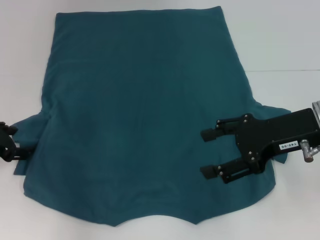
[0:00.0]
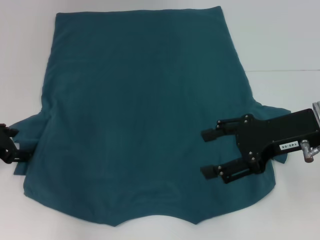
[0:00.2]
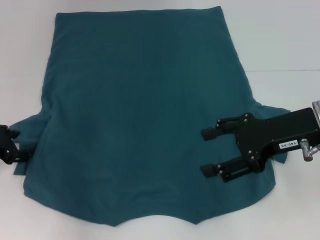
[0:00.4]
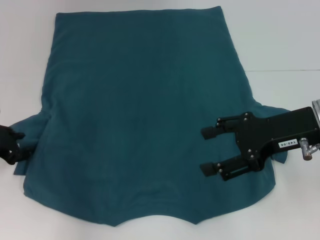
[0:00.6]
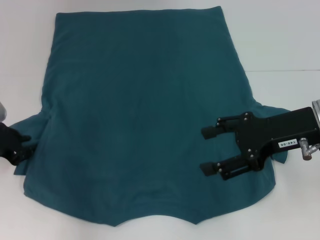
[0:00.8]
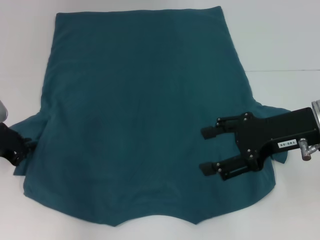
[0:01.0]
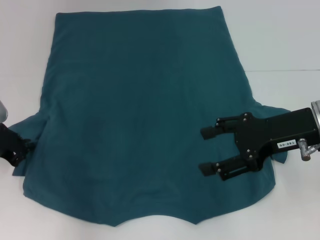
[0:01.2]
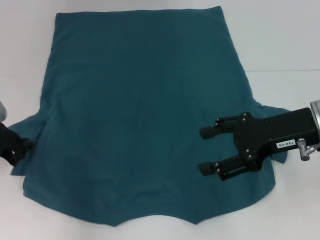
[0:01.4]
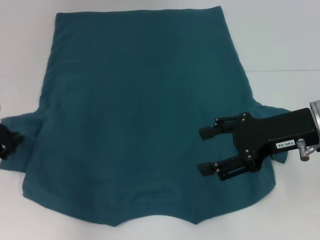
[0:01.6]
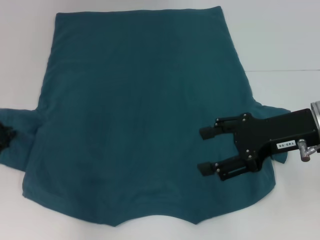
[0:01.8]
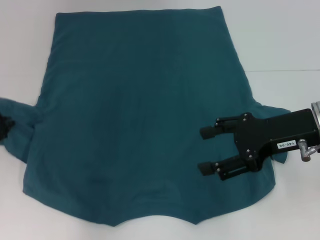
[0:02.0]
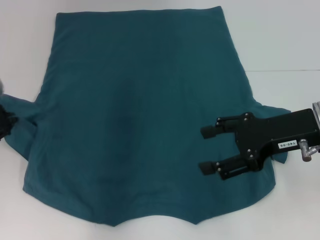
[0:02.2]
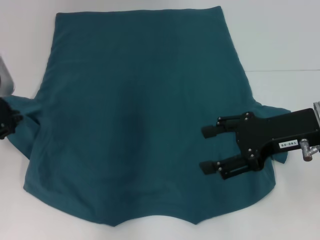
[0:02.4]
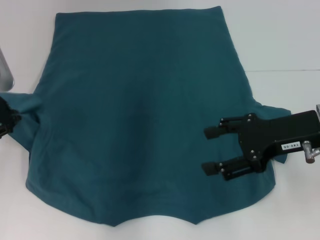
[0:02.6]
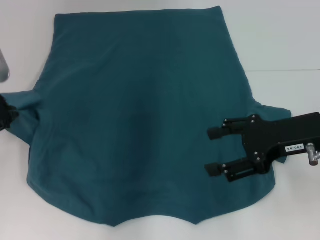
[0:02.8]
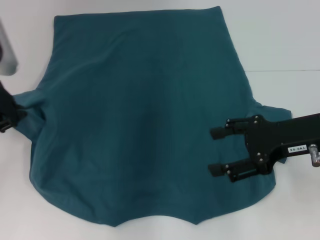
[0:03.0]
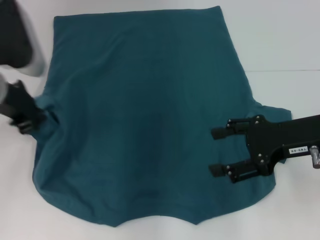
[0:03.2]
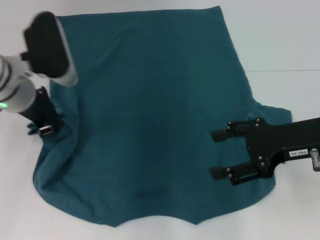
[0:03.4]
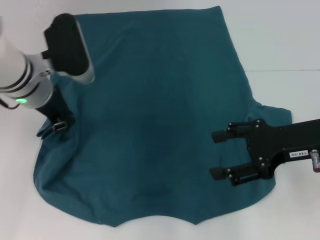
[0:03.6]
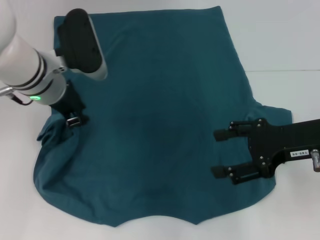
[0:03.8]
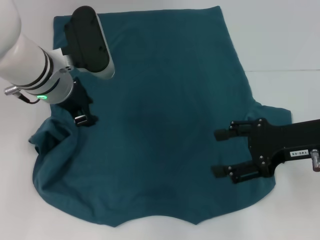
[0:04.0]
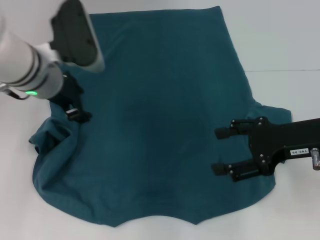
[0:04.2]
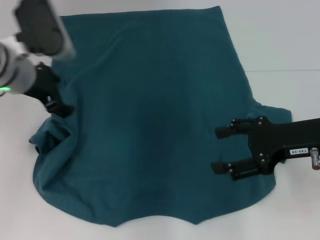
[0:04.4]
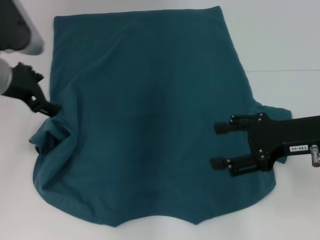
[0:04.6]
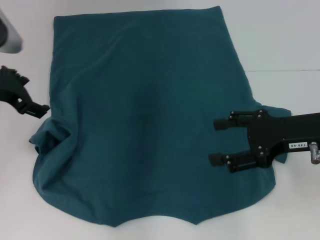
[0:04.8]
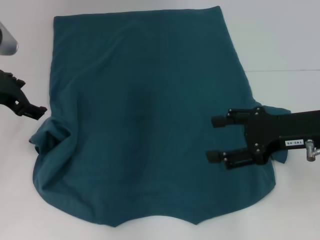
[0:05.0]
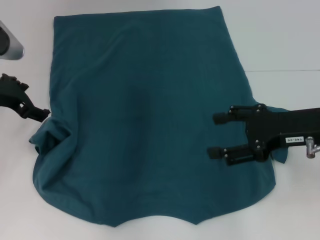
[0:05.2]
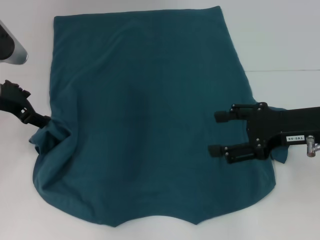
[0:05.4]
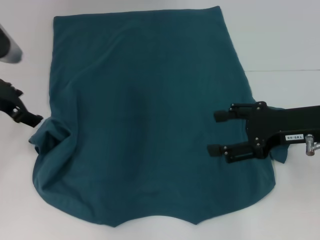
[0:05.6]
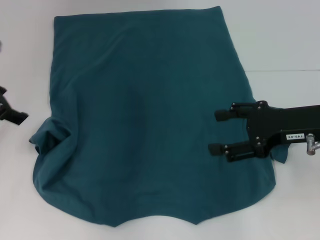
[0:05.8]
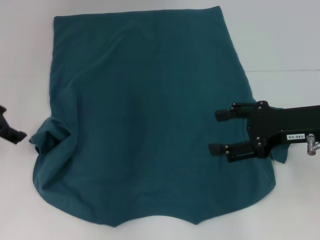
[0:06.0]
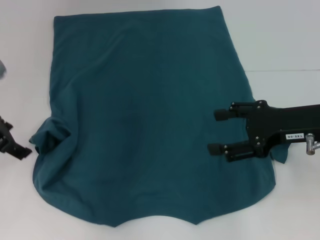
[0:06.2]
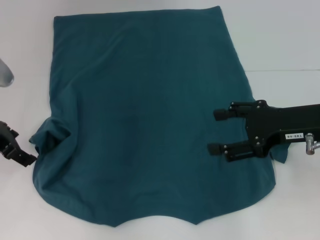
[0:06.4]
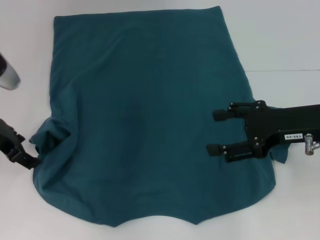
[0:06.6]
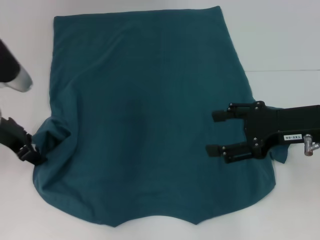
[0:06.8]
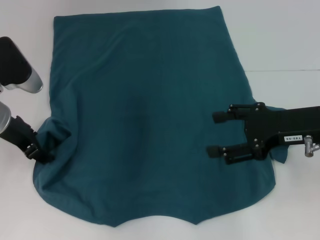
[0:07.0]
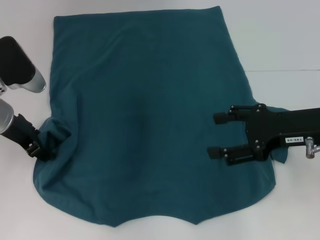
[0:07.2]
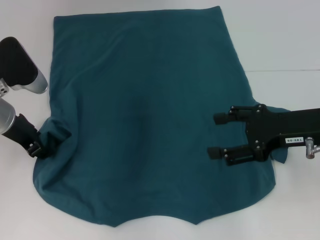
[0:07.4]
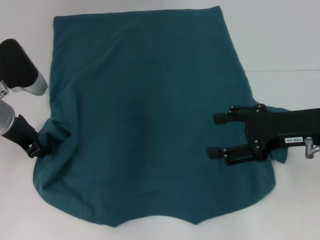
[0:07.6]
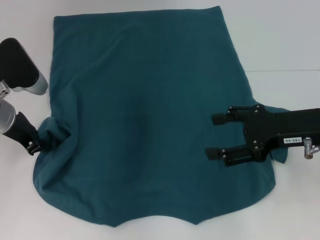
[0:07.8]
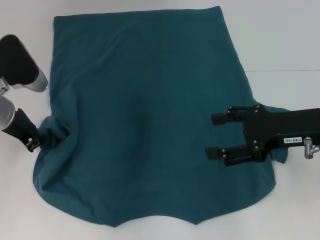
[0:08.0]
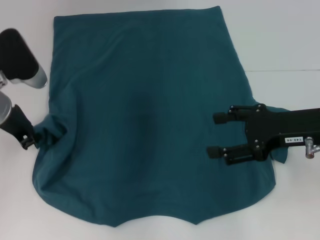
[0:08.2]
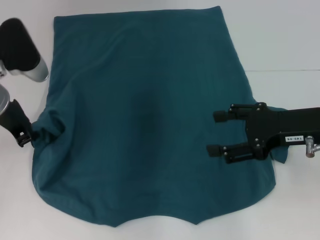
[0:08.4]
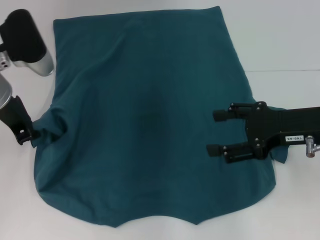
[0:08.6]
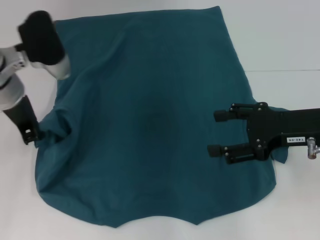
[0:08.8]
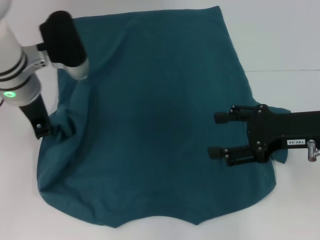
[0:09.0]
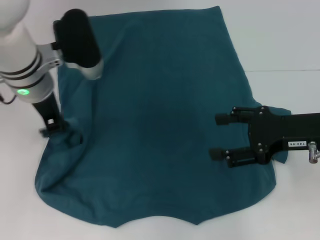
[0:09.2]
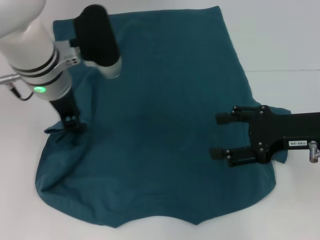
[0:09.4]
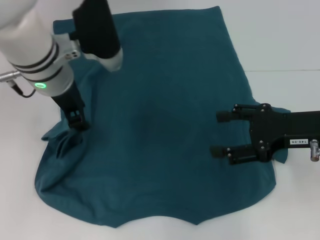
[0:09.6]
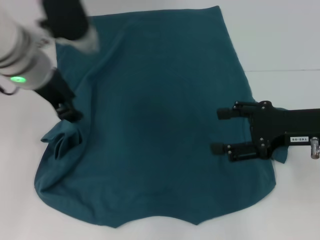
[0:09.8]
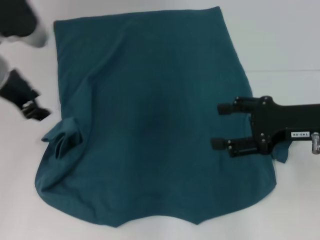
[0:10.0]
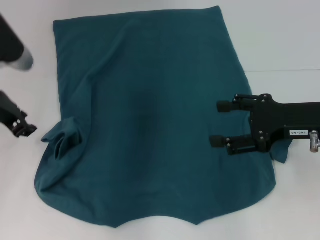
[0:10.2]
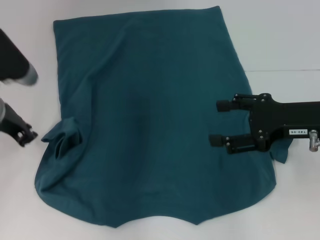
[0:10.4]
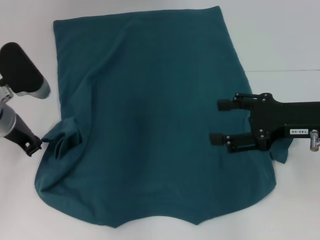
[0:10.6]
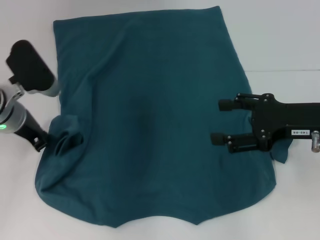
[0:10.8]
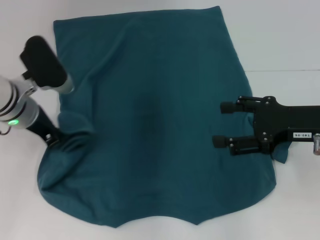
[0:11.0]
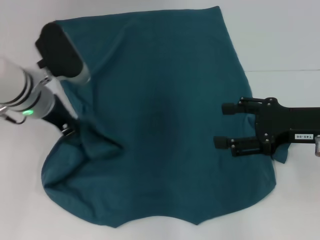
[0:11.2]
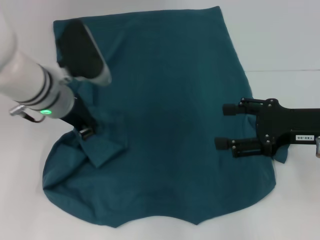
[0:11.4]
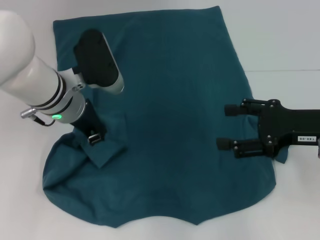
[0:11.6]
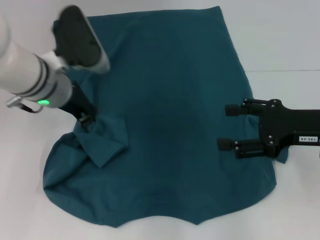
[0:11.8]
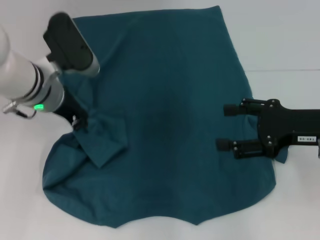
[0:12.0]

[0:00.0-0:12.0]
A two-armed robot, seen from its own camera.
0:00.0 to 0:01.6: The left gripper closes up.
0:01.6 to 0:03.0: The left gripper moves upward and to the right, about 10 cm.
0:03.0 to 0:04.4: The left gripper moves to the right, approximately 5 cm, and opens.
0:04.4 to 0:06.0: The left gripper heads to the left, covering approximately 10 cm.
0:06.0 to 0:07.6: The left gripper heads downward, covering roughly 5 cm, and closes its fingers.
0:07.6 to 0:09.0: The left gripper travels to the right and upward by about 10 cm, and closes up.
0:09.0 to 0:10.4: The left gripper is displaced to the left and downward by approximately 10 cm, and opens its fingers.
0:10.4 to 0:12.0: The left gripper heads to the right, covering about 10 cm, and closes up.

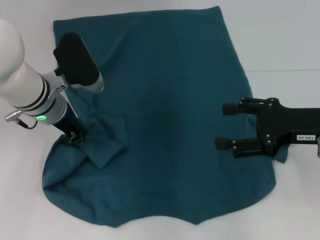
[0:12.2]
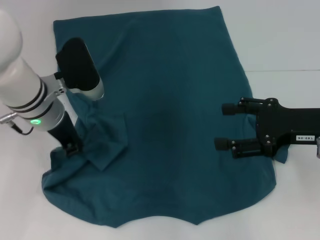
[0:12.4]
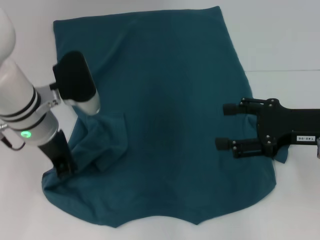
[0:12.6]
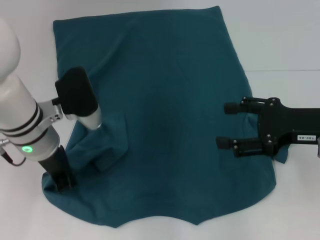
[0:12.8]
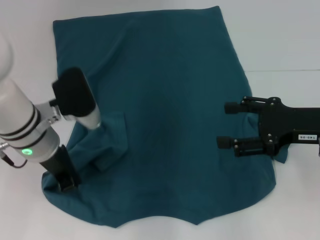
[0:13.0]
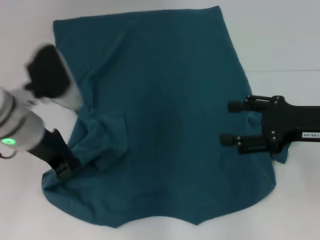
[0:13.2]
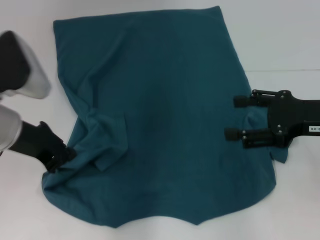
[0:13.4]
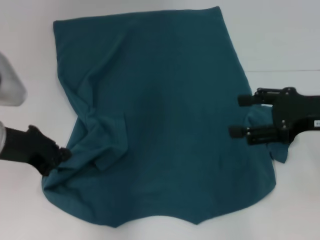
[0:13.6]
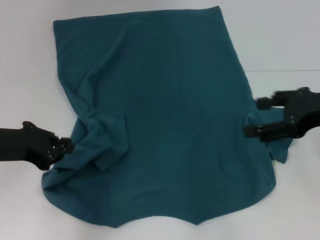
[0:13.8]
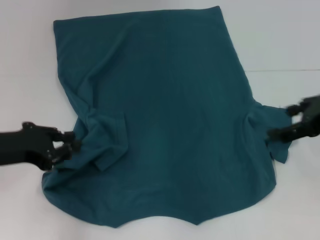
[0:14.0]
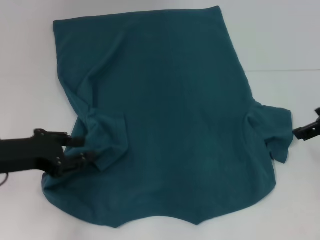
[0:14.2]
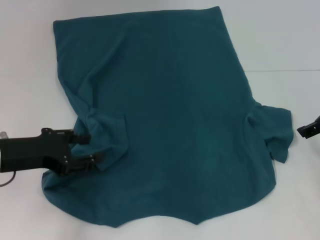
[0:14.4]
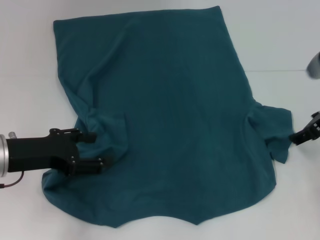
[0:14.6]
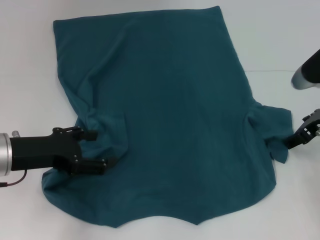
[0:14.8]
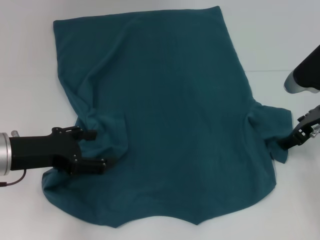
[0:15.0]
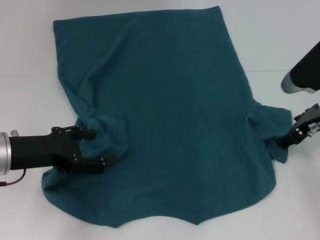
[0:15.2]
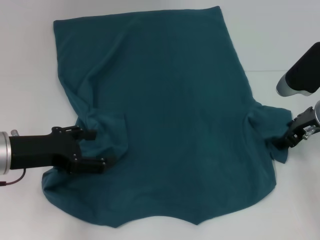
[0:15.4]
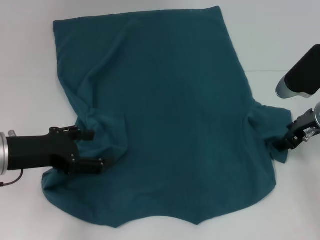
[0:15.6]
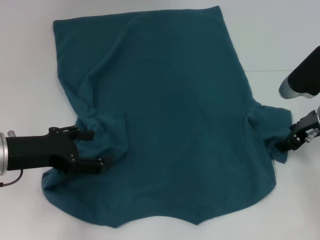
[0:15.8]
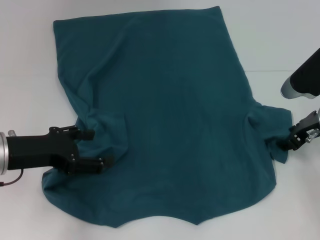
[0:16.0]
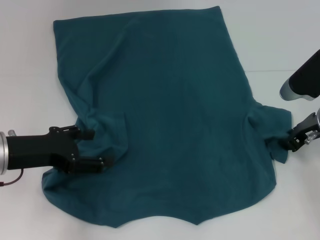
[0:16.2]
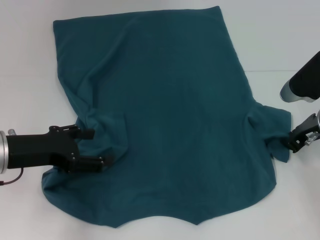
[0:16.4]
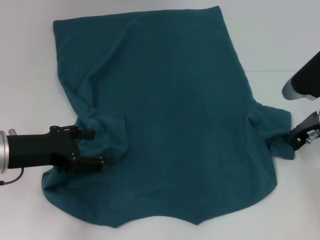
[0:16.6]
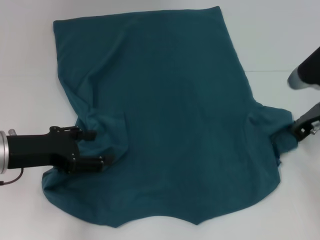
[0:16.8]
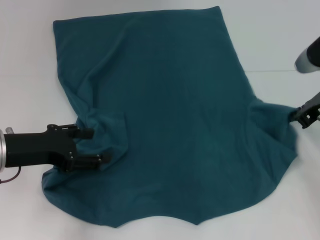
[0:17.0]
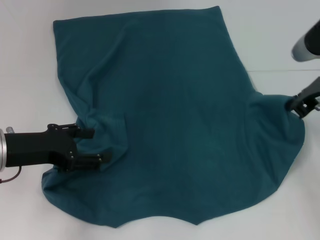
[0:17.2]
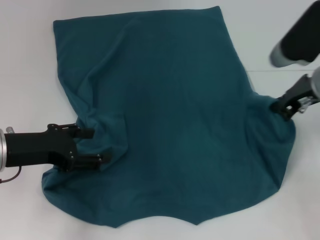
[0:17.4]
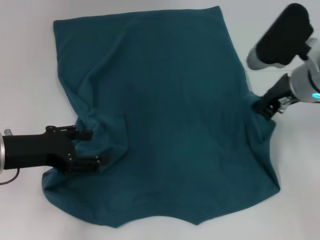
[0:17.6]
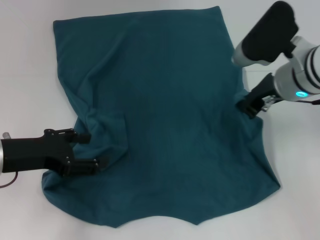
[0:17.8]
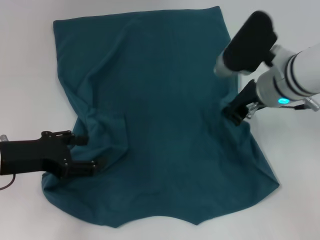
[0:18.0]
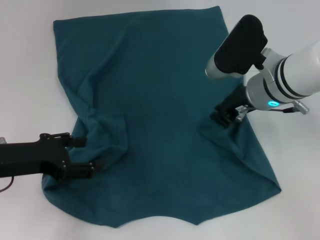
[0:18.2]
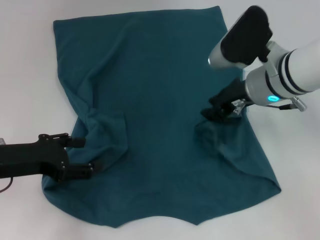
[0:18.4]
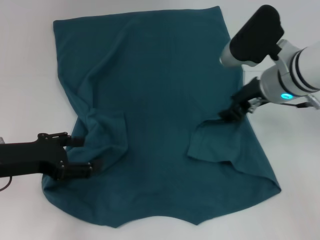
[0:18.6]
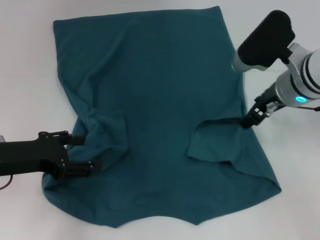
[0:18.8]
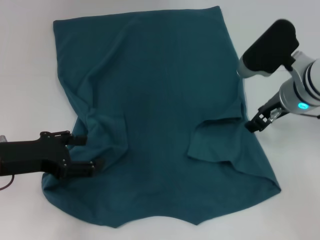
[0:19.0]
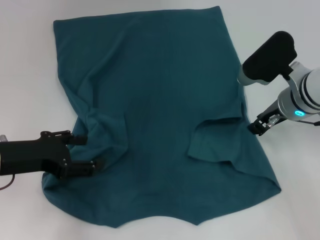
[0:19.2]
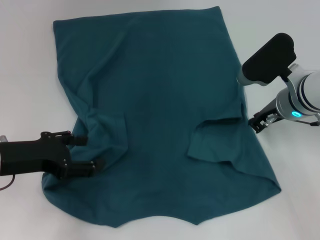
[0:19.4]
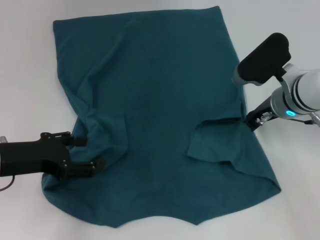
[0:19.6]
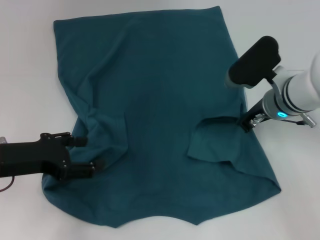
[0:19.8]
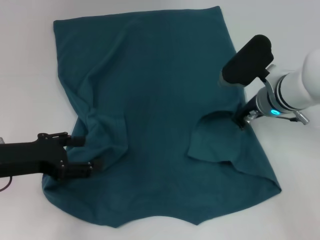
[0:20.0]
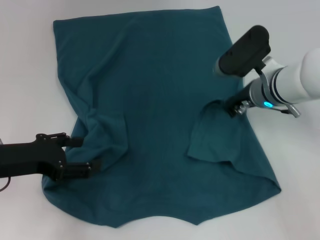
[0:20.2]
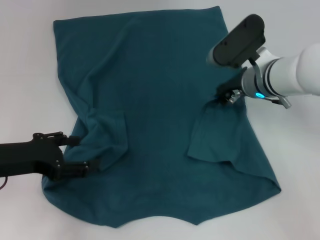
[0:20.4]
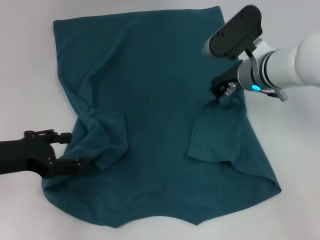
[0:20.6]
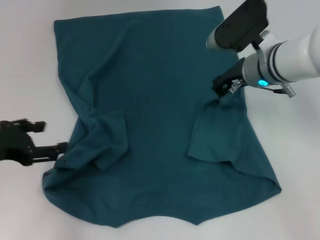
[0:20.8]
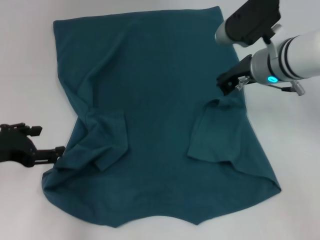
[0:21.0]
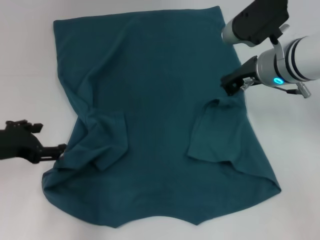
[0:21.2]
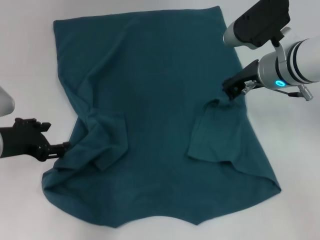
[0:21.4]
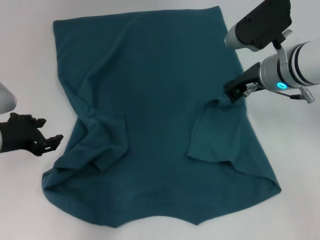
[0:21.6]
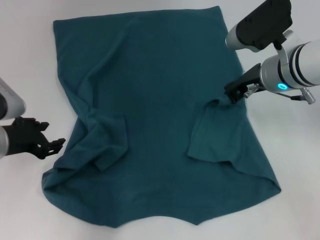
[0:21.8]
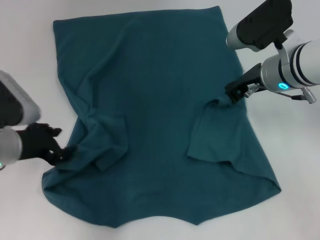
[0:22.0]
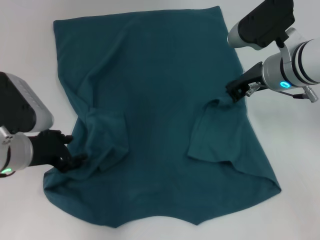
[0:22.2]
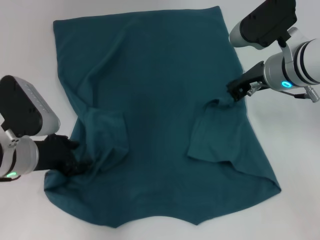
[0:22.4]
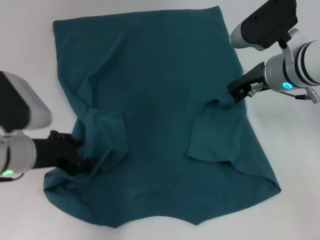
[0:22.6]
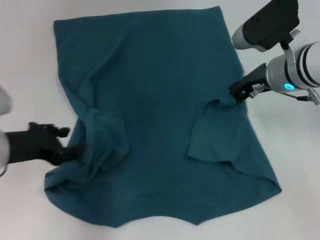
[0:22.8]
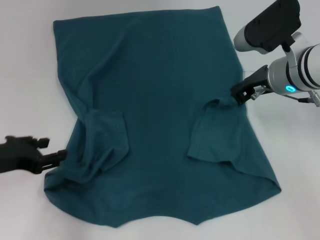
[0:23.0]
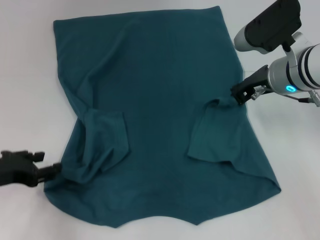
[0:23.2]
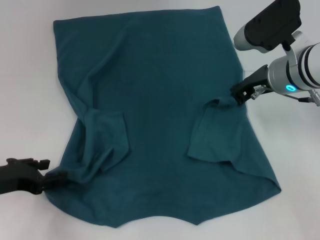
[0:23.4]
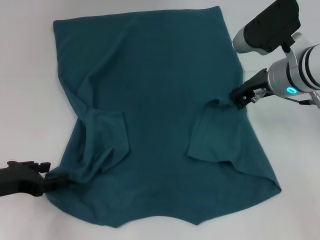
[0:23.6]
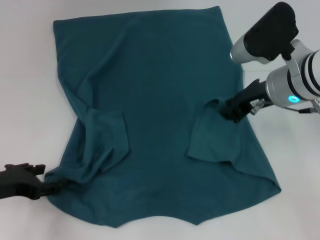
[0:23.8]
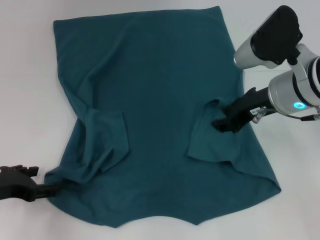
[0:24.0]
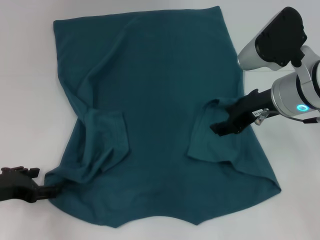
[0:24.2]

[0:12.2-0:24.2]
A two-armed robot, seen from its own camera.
Step, 0:14.2 to 0:20.8: Fold the bottom right sleeve to the right.
0:12.2 to 0:13.8: The right gripper is displaced upward by roughly 5 cm. Meanwhile the left gripper moves backward and to the left, approximately 15 cm.
0:13.8 to 0:15.2: The left gripper opens. The right gripper travels downward and forward by roughly 10 cm.
0:15.2 to 0:16.6: The right gripper closes its fingers.
0:16.6 to 0:18.2: The right gripper travels to the left and upward by roughly 15 cm.
0:18.2 to 0:19.8: The right gripper goes some 5 cm downward, and opens and closes again.
0:19.8 to 0:21.2: The right gripper moves upward, about 5 cm.
0:21.2 to 0:22.6: The left gripper shifts some 5 cm to the right.
0:22.6 to 0:24.2: The right gripper opens its fingers, while the left gripper is displaced to the left by roughly 10 cm.
